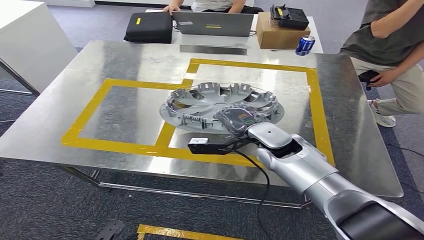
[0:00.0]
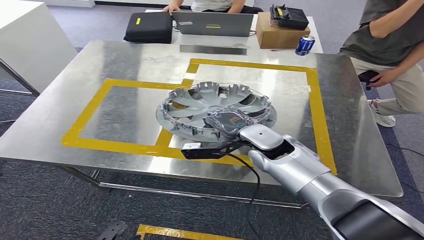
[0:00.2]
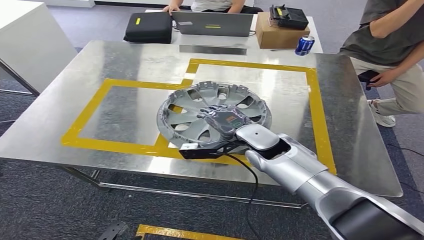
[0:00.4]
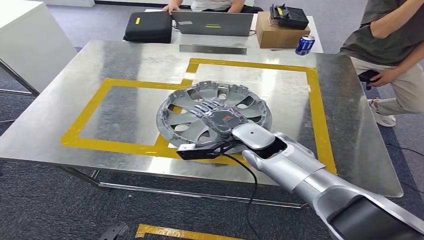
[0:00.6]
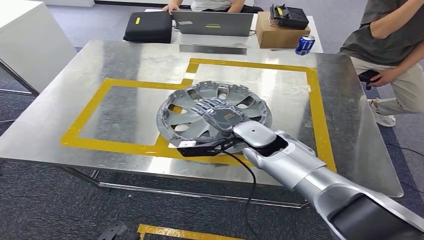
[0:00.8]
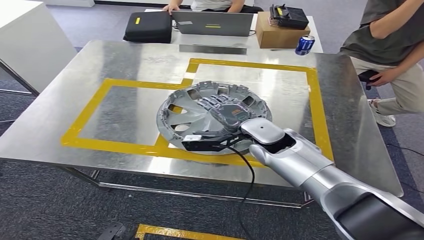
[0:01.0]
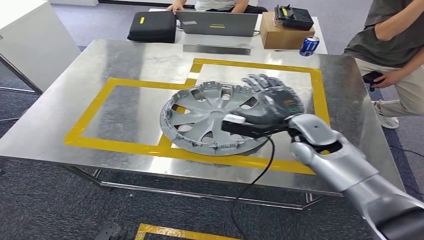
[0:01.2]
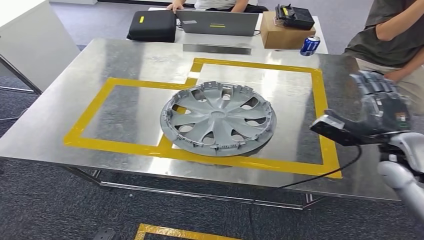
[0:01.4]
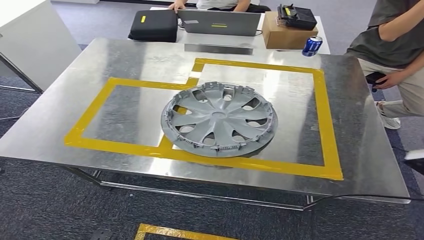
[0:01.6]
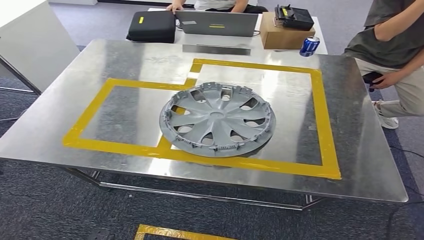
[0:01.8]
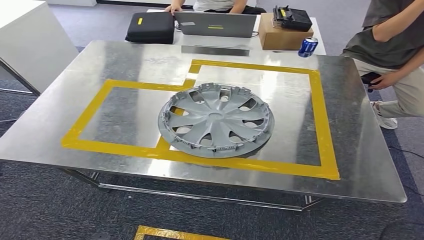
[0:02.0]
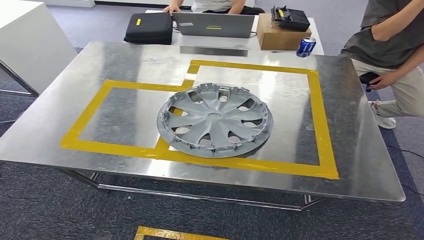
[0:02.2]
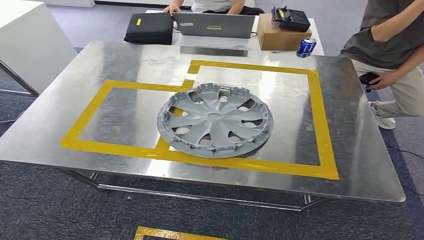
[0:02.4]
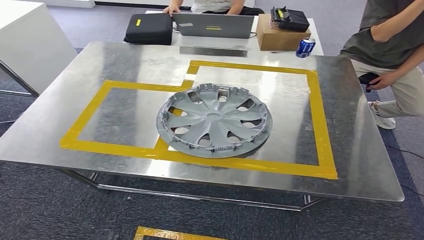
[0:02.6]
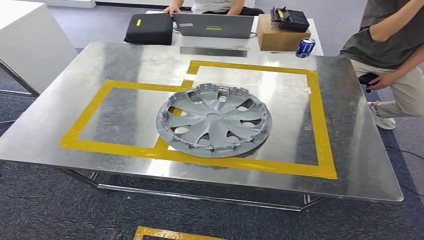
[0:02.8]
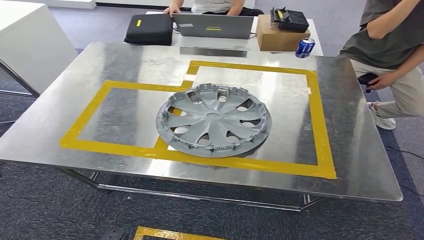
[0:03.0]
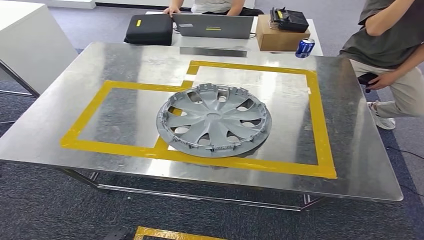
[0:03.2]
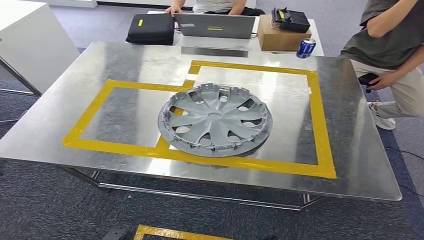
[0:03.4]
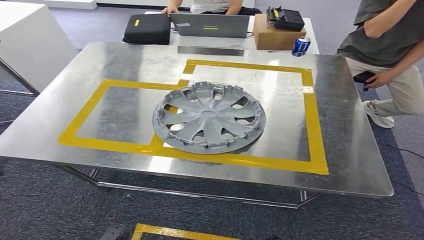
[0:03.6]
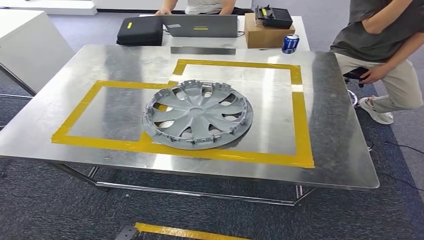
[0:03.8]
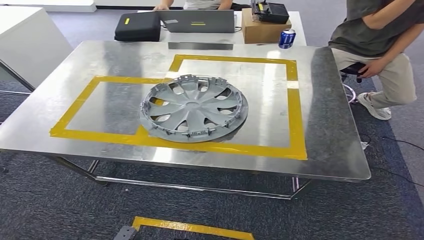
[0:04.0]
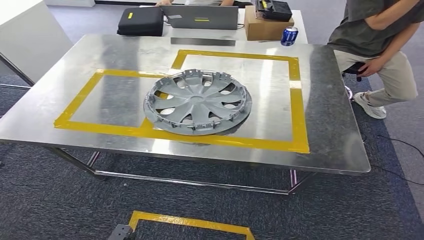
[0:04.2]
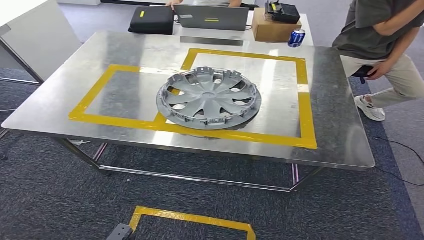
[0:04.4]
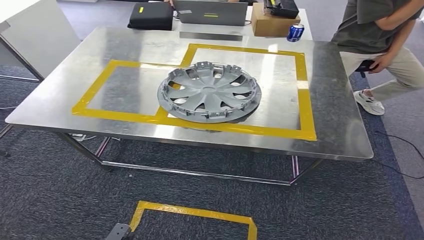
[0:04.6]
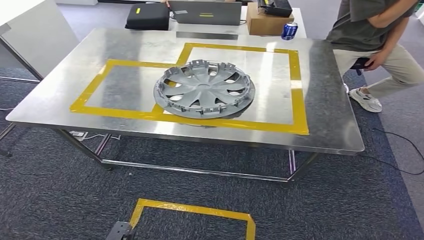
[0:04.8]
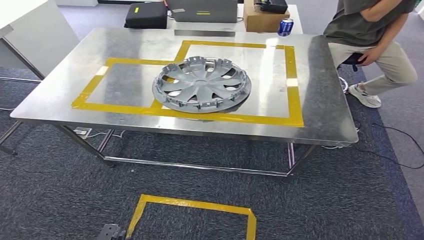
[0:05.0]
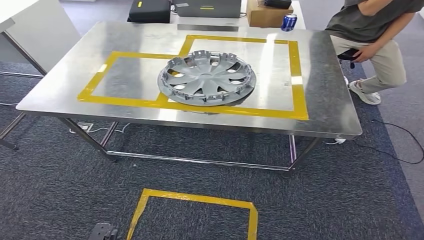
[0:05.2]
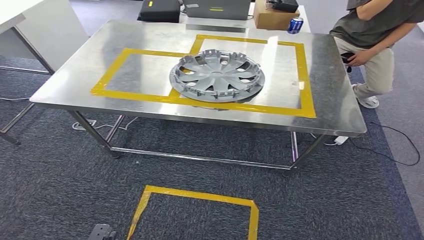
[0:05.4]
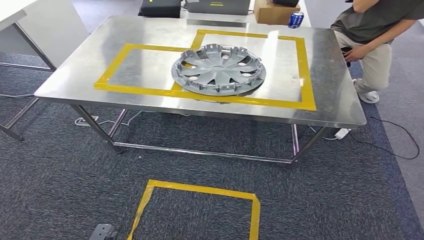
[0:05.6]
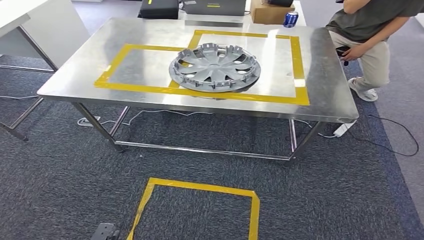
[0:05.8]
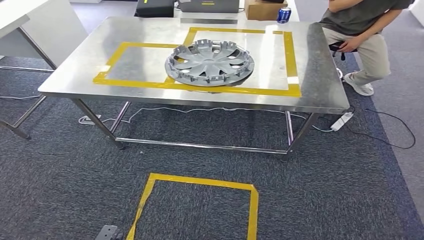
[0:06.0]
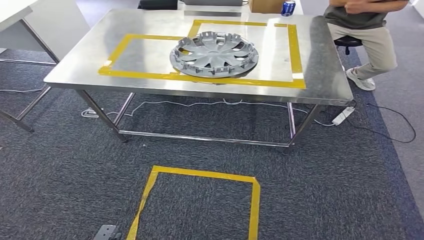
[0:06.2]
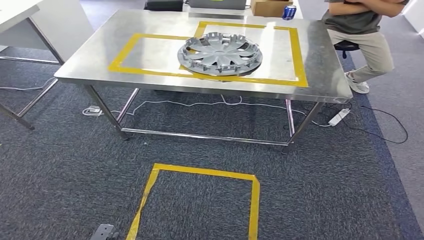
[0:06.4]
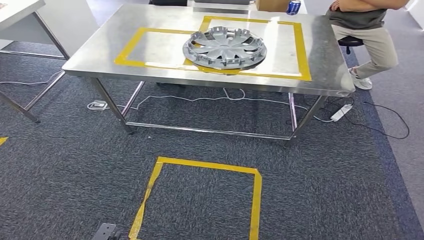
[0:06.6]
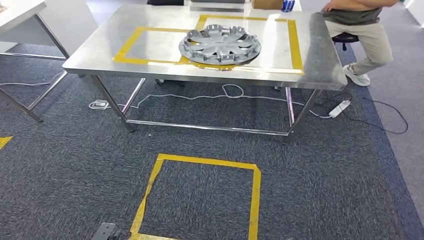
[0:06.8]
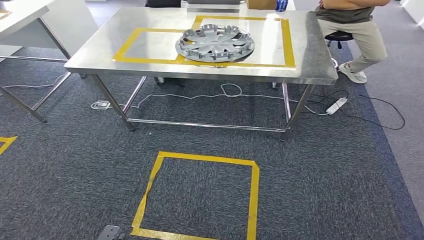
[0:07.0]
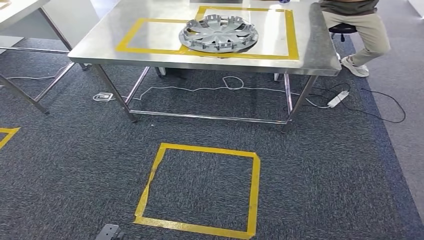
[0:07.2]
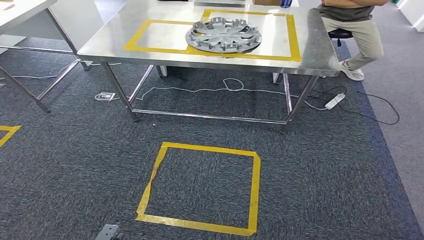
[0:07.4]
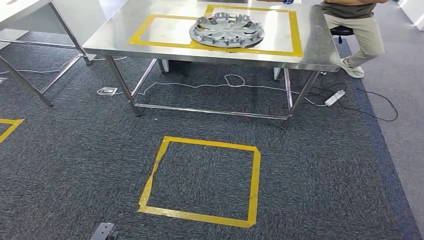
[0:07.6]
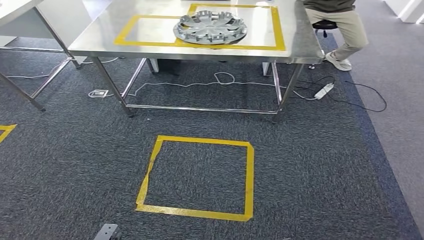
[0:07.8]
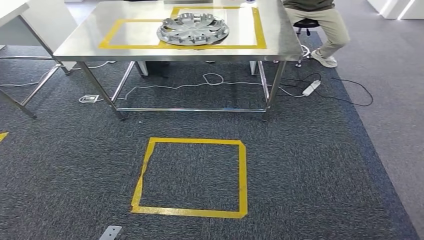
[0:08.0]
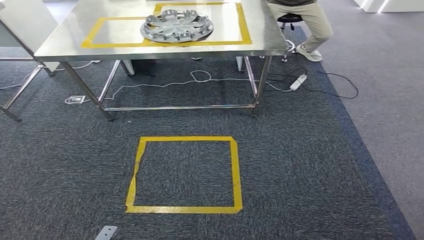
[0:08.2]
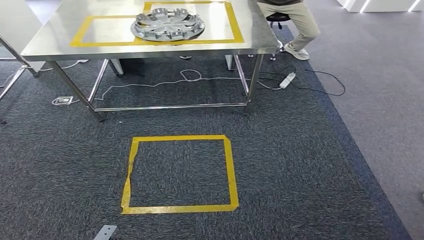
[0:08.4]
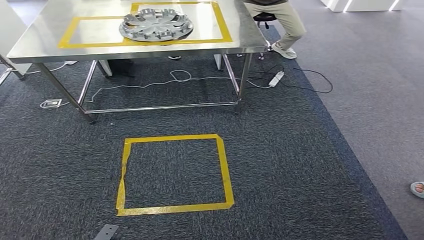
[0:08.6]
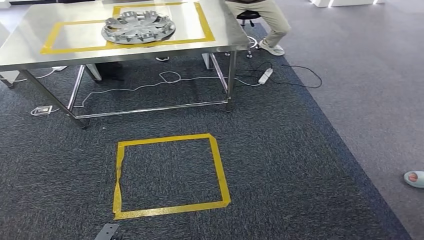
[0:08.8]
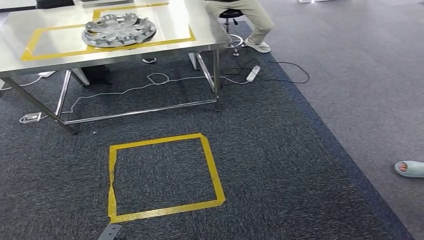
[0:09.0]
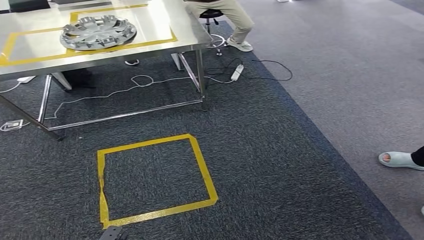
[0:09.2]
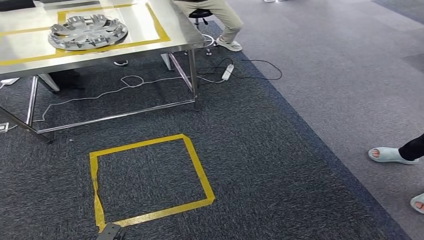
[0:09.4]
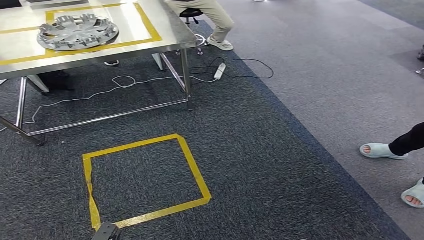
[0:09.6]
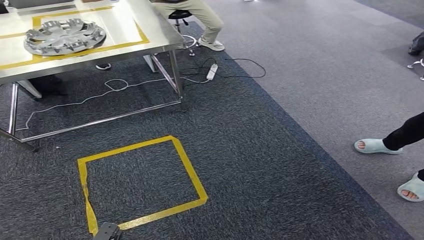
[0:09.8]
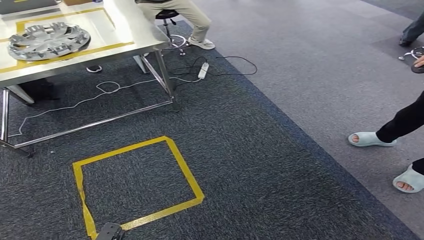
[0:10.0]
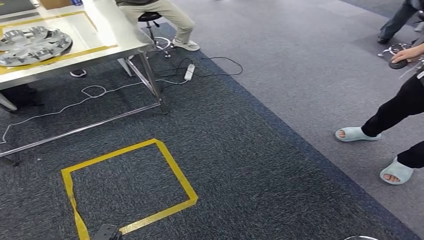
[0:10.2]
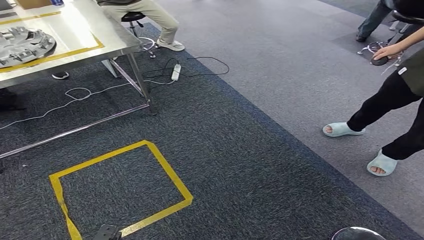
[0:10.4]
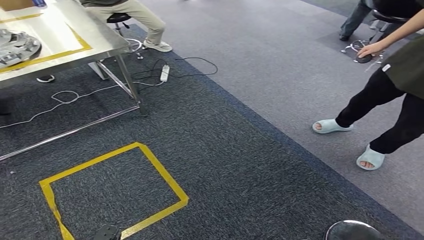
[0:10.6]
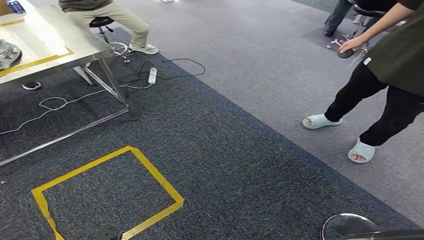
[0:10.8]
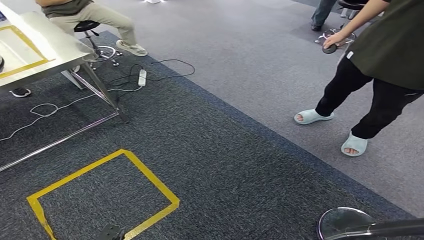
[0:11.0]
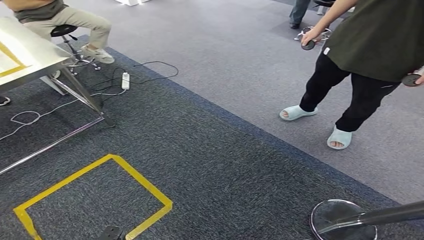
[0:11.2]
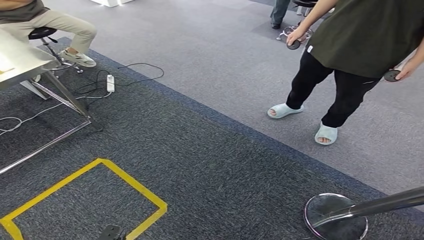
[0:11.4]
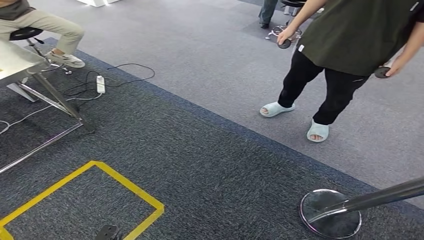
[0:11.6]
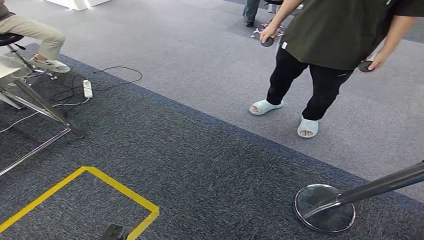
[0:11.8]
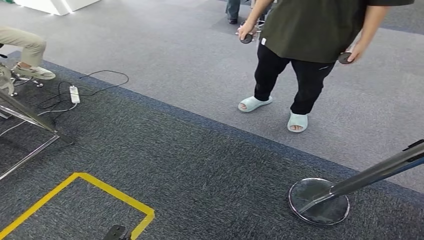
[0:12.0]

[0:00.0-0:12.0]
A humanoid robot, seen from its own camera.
Step, 0:00.0 to 0:02.0: Insert the small component into the corresponding slot on the workbench.

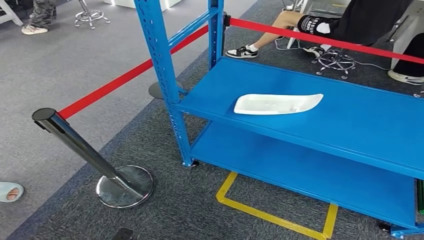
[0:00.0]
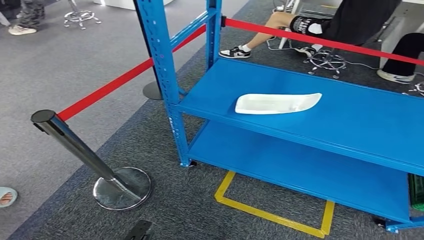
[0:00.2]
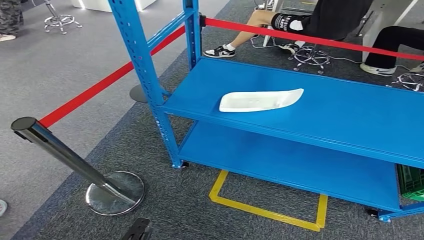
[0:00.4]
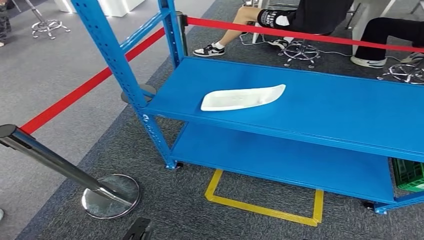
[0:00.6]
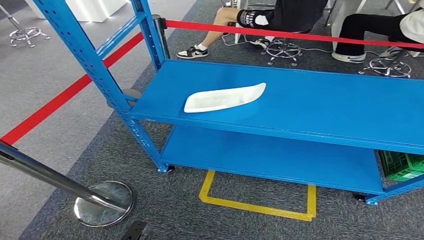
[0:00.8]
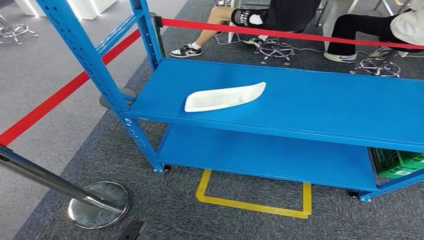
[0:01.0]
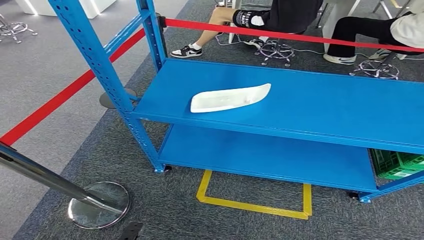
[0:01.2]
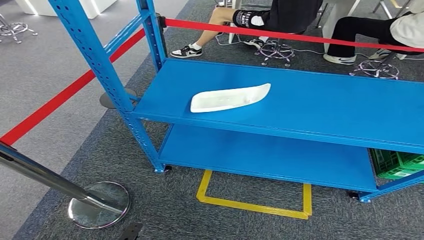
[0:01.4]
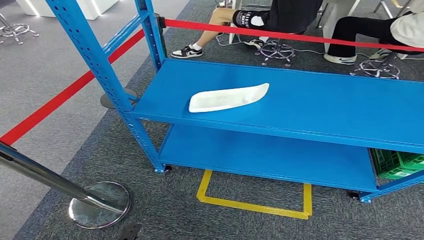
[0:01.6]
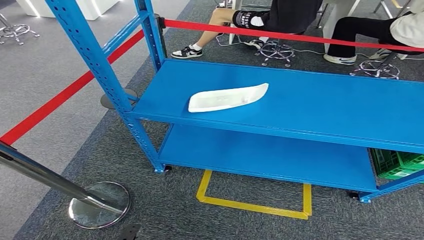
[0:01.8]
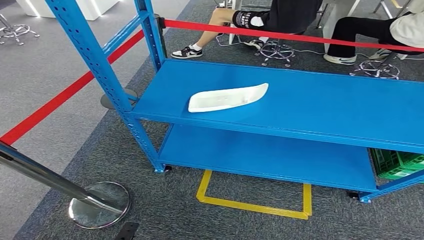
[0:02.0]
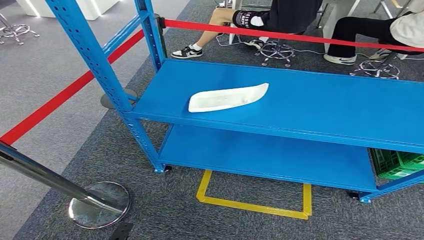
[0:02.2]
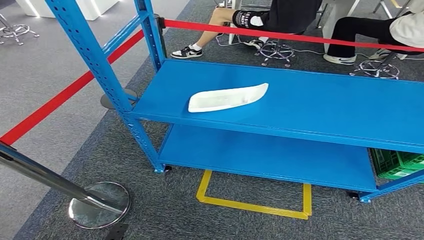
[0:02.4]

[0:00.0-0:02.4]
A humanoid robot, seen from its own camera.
Step, 0:00.0 to 0:02.4: Move to the initial position at the workbench.

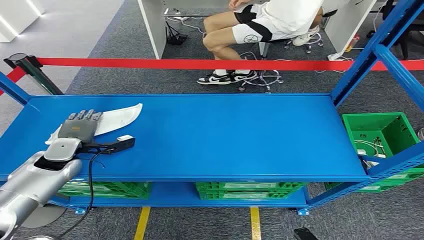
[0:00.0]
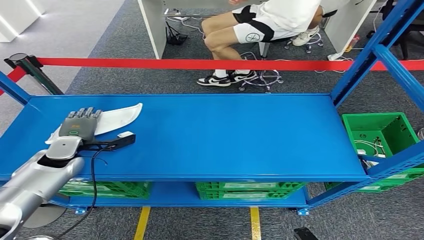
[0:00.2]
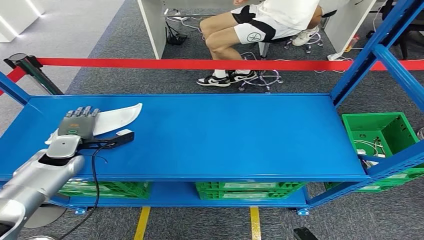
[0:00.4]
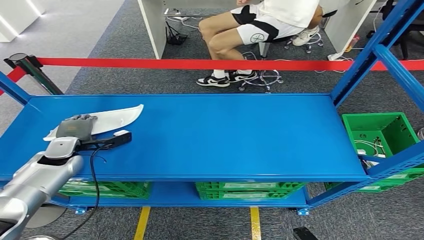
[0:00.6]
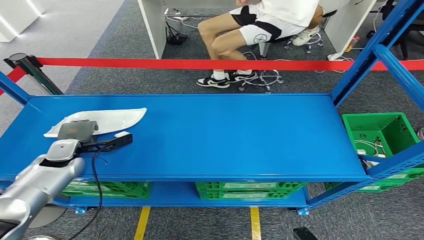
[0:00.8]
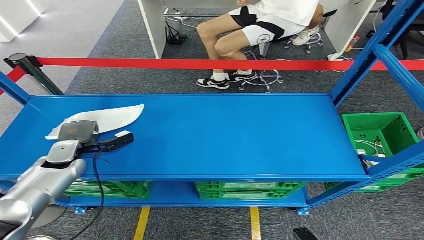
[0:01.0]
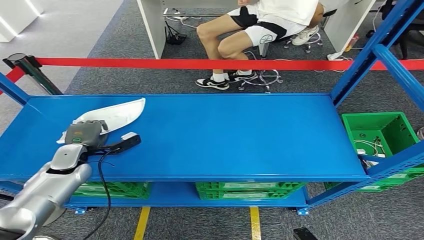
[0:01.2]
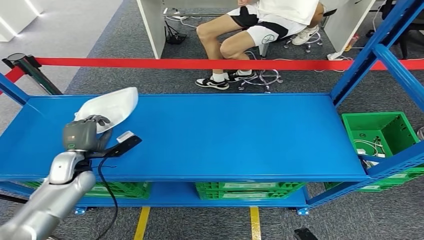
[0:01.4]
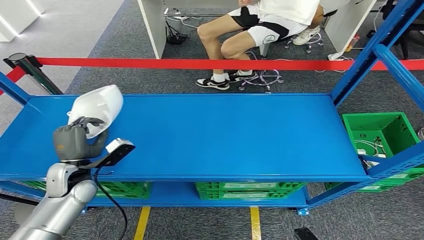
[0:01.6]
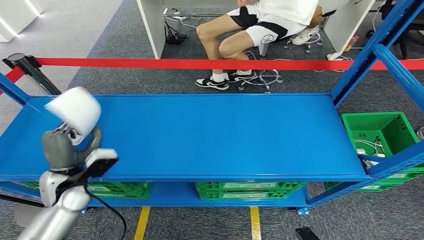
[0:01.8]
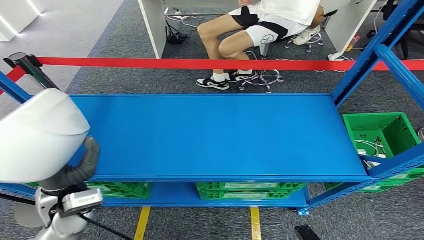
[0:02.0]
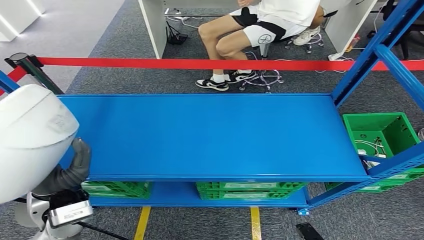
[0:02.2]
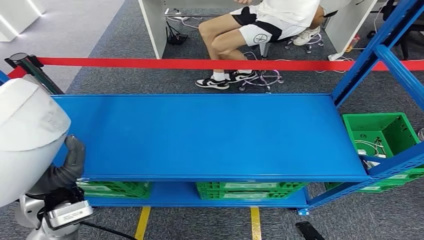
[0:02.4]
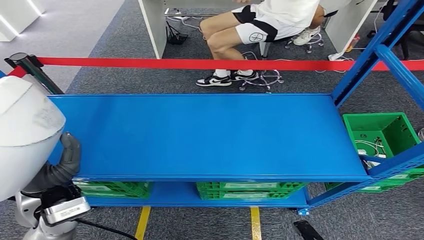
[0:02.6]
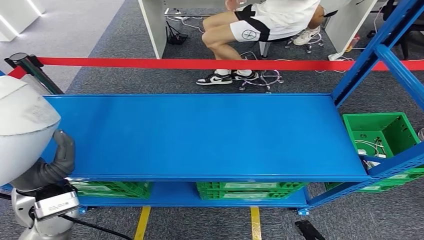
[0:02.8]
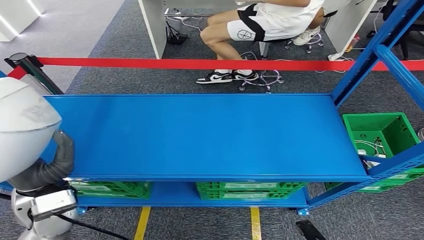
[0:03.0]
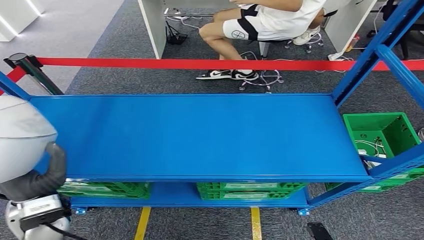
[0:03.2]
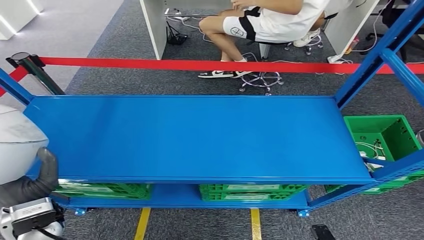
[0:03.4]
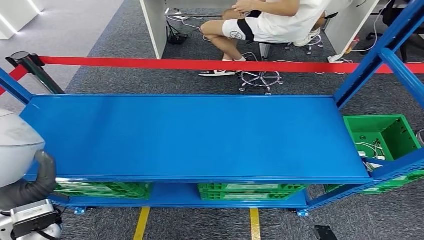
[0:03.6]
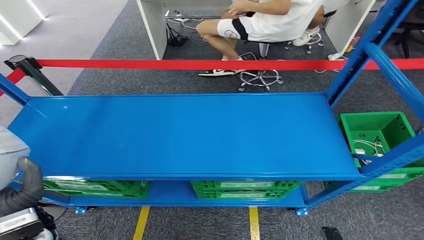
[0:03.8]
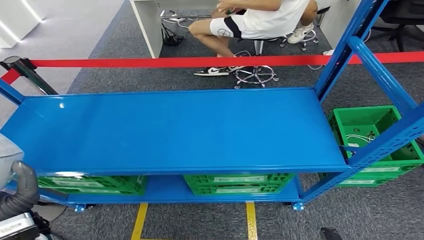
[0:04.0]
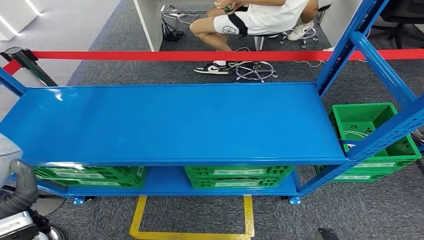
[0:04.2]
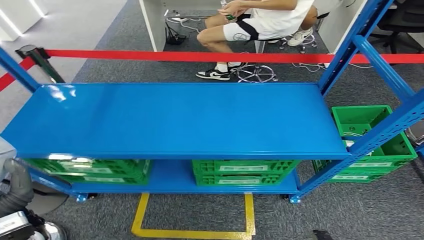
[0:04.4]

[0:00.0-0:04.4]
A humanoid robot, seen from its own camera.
Step, 0:00.0 to 0:03.4: Pick up the small component from the shelf.
0:01.4 to 0:03.0: The left hand is displaced upward, backward and to the right by about 15 cm.
